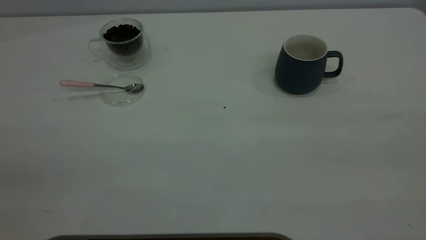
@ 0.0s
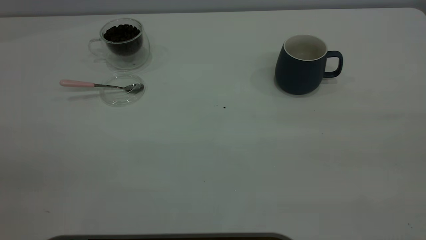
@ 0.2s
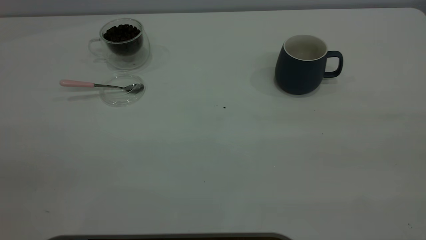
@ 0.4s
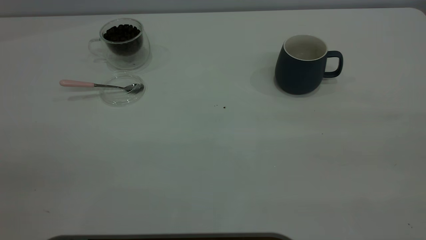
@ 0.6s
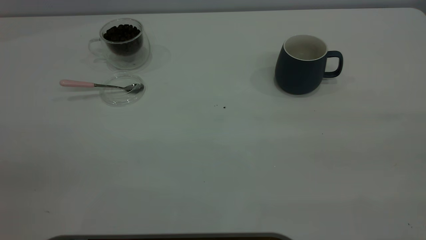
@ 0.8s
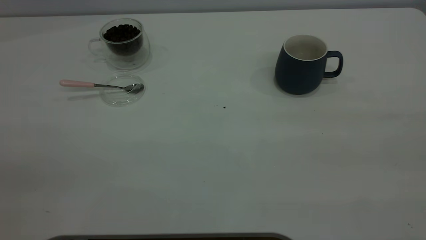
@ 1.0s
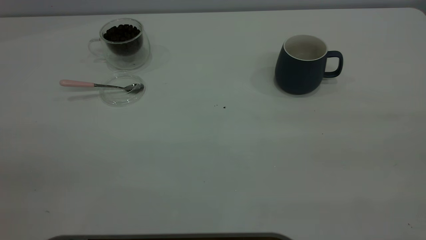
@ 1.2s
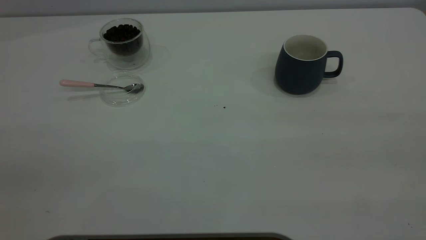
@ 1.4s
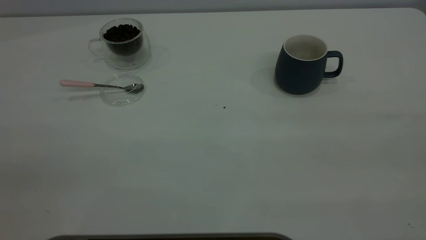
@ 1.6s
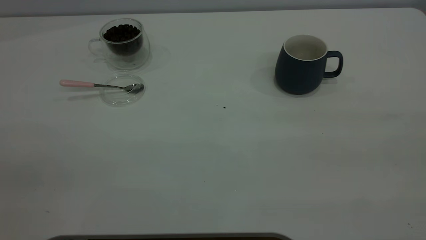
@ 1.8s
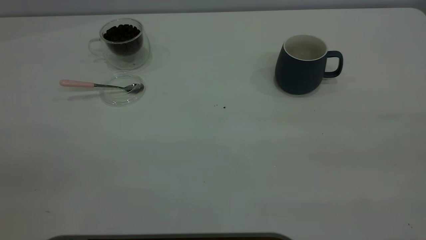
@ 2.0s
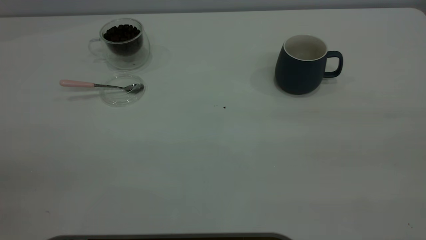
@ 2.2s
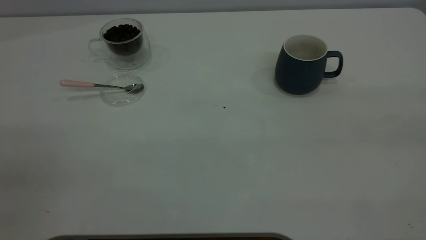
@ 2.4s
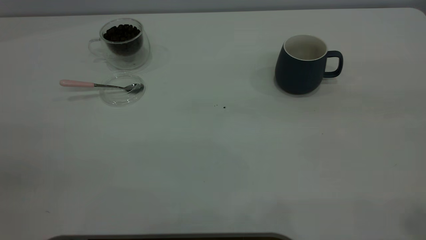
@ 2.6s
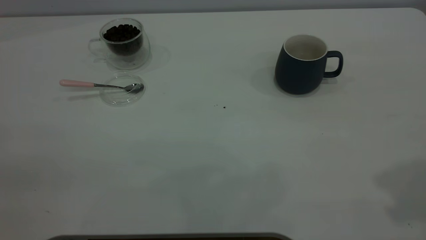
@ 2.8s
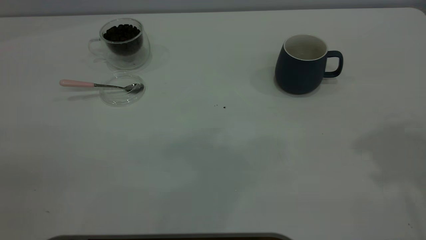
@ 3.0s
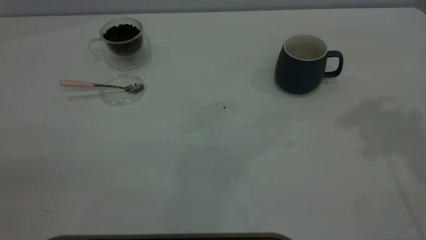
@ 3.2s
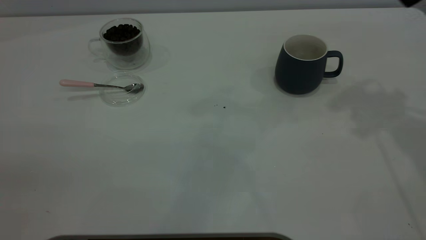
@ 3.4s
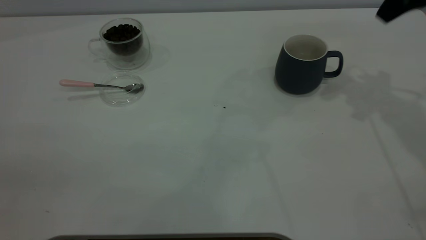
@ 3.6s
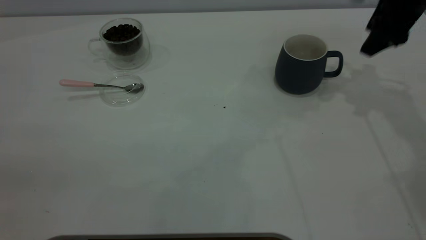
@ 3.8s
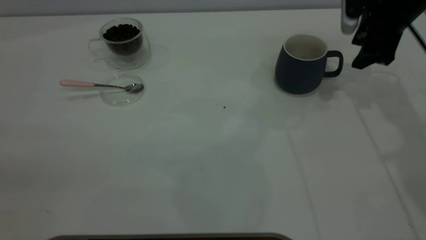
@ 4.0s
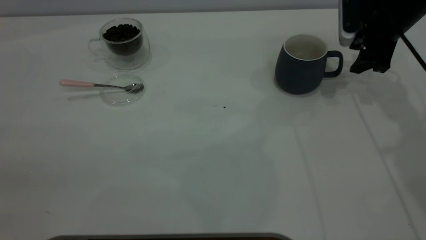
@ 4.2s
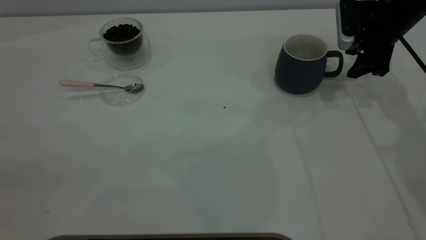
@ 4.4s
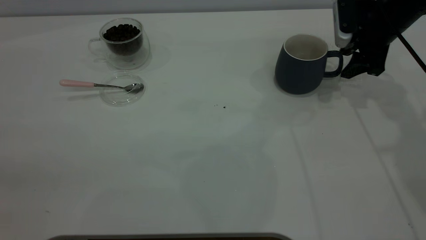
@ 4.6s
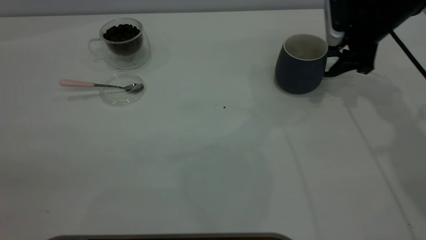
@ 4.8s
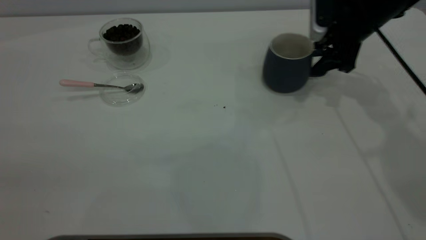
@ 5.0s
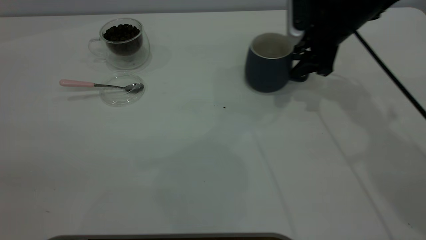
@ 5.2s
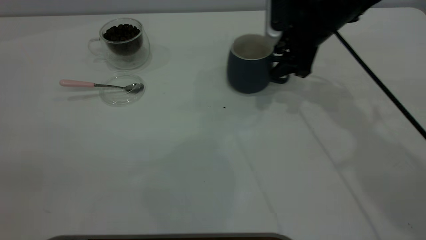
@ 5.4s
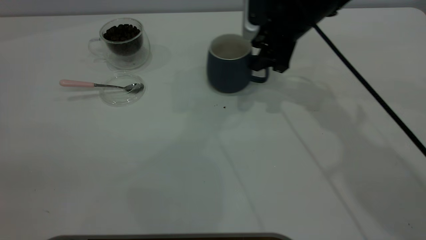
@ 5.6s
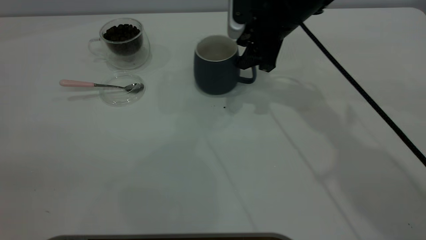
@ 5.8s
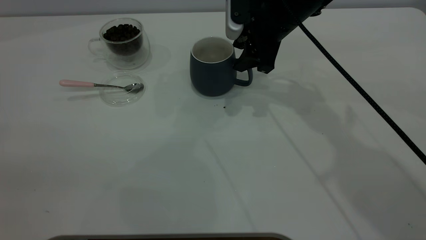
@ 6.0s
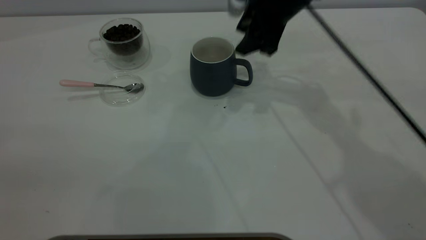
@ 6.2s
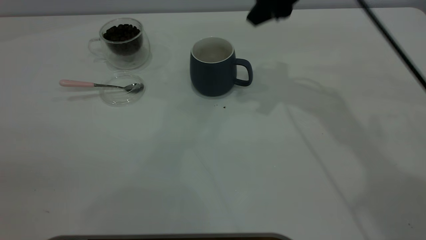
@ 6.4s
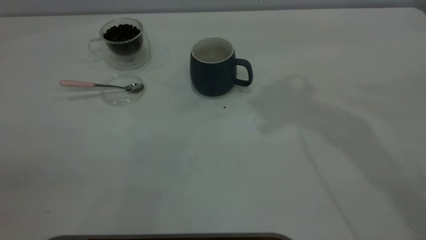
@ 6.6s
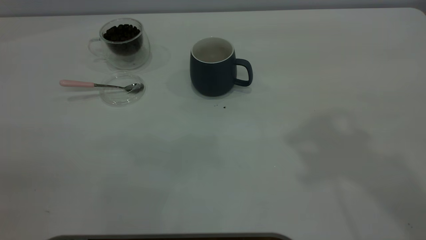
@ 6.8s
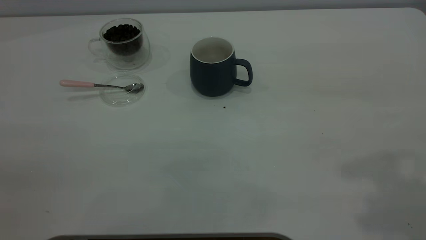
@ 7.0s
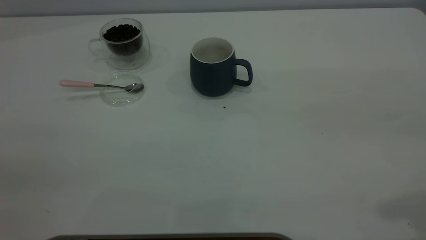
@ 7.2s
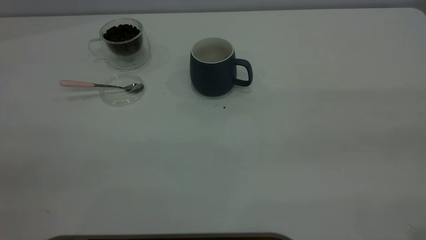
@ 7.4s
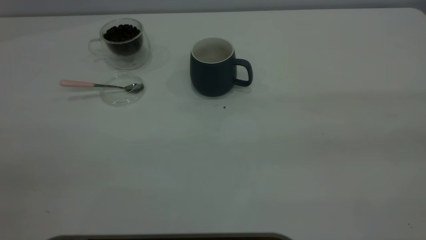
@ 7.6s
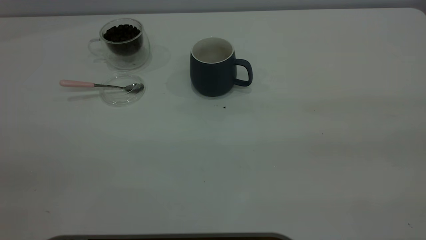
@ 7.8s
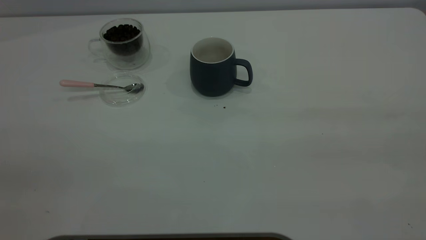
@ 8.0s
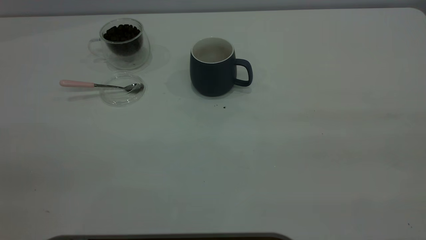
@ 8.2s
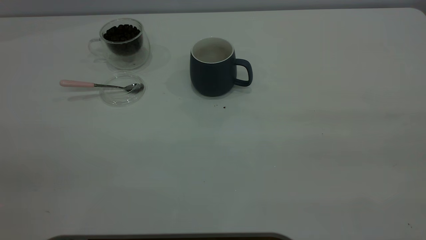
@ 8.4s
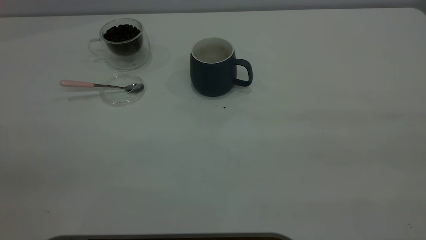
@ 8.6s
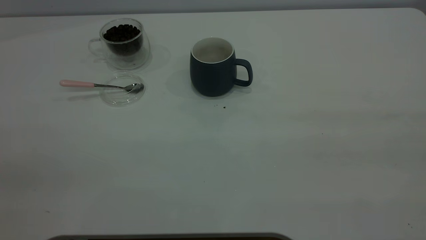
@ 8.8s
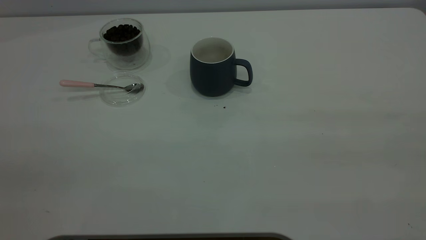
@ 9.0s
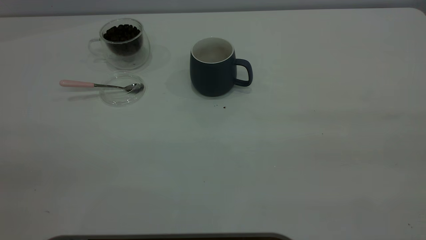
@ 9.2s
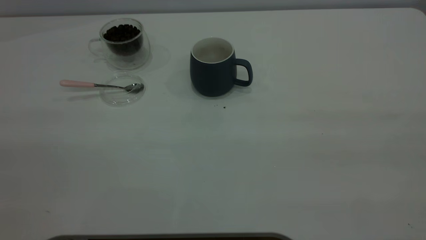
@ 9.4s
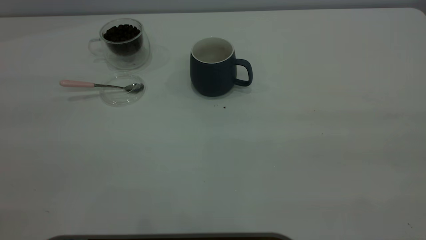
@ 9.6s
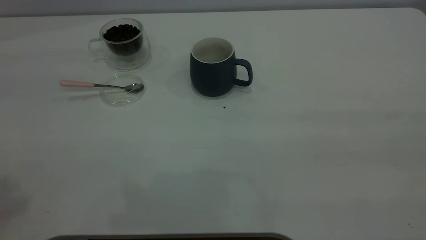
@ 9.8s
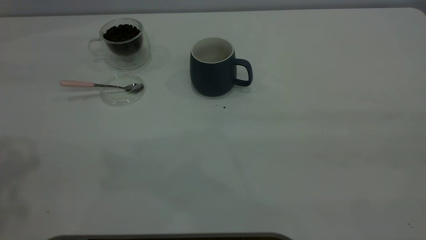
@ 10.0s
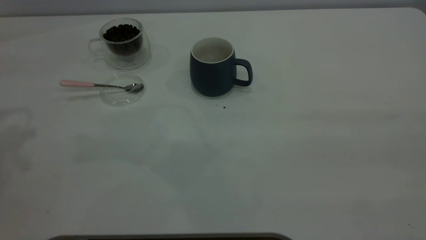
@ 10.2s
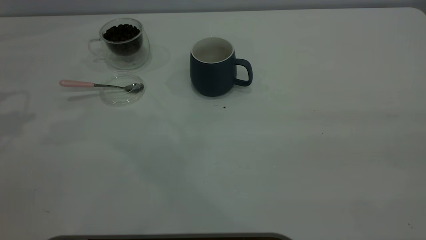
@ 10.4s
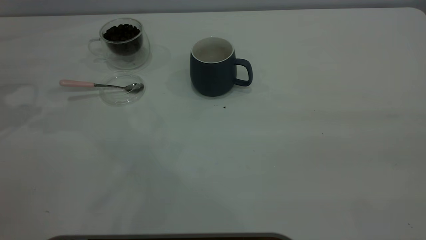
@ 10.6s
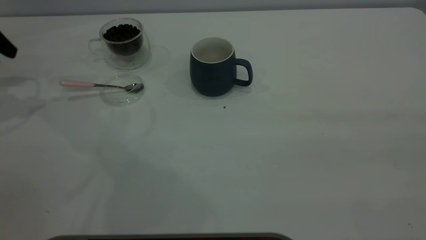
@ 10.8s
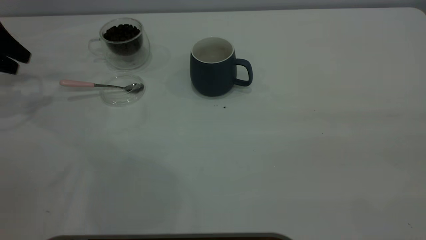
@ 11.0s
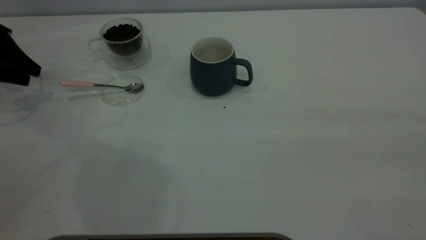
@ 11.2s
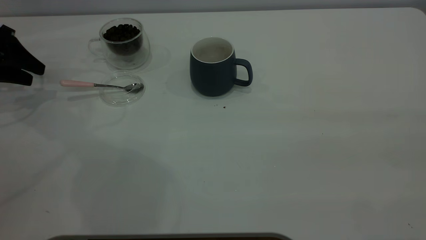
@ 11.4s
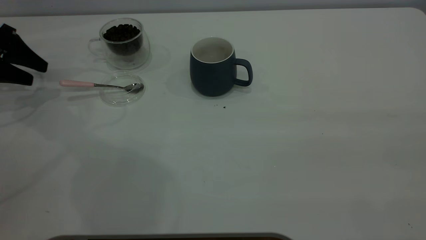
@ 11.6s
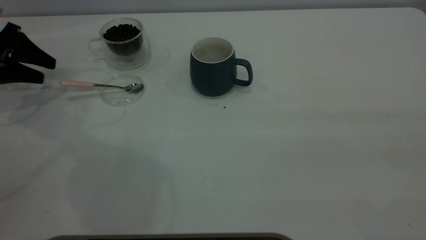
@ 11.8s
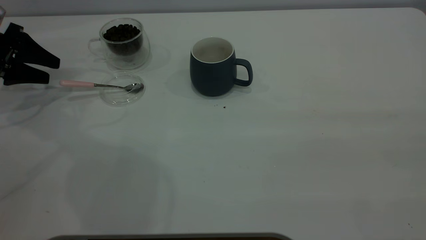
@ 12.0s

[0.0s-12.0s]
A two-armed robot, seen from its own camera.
Task of the whole recording: the right gripper place the grey cup in the center of the table, the left gripper take the pink spoon from the cup lid and scoop out the coffee beans from the coffee cup and put them into the grey cup, the left gripper put the spoon back into the cup lid.
Step, 0.0s to 6.2s: Move the cup to the center of view.
0.0s to 1.6s: Neither gripper changes place.
3.0s to 4.4s: The right gripper shifts about 30 cm downward and forward.
4.4s to 6.0s: The right gripper is displaced to the left by approximately 20 cm.
6.0s to 7.6s: The right gripper travels backward, upward and to the right by roughly 50 cm.
10.4s to 12.0s: The left gripper moves downward and forward, some 20 cm.

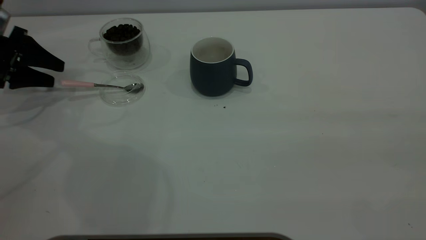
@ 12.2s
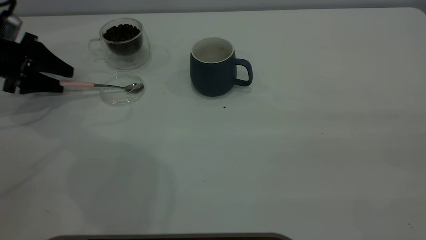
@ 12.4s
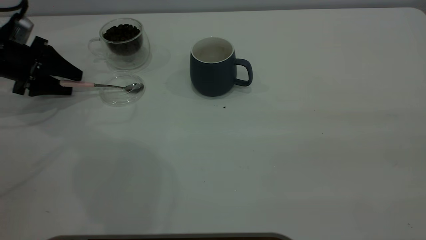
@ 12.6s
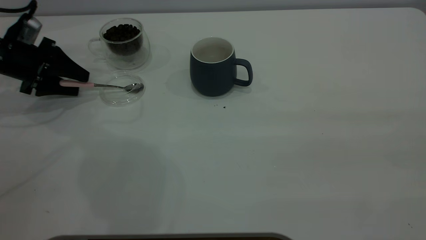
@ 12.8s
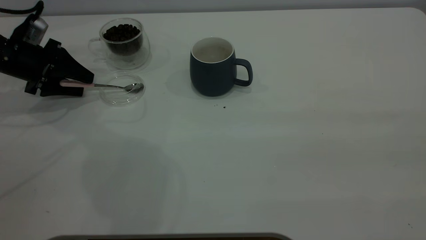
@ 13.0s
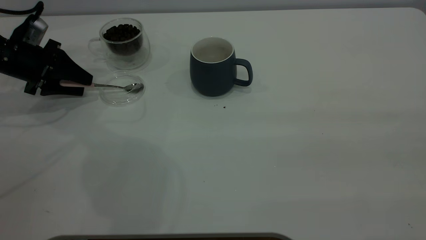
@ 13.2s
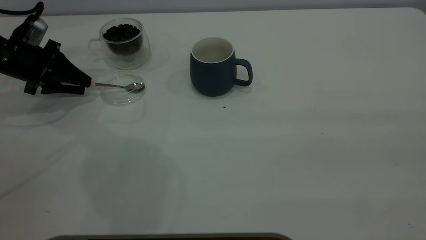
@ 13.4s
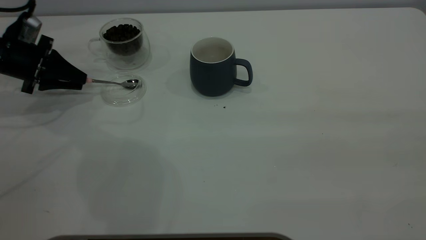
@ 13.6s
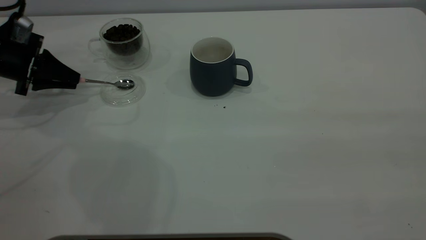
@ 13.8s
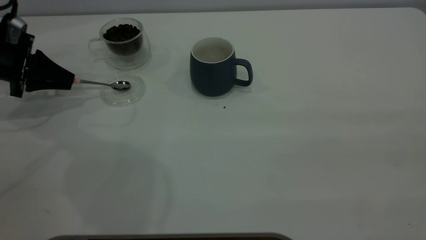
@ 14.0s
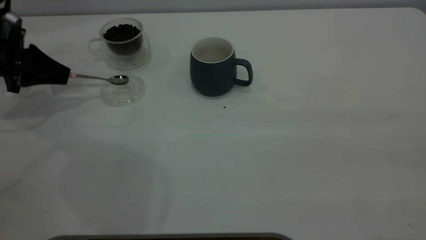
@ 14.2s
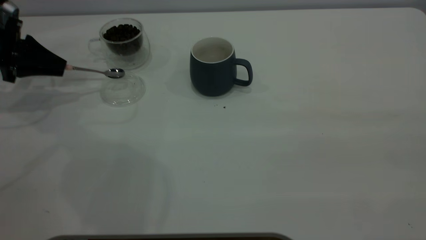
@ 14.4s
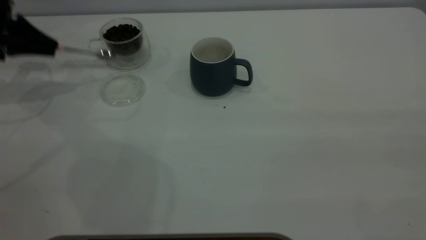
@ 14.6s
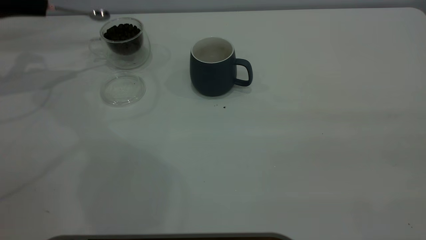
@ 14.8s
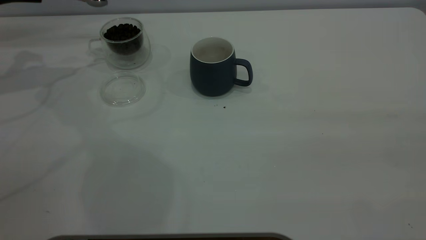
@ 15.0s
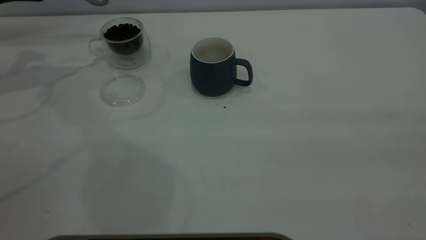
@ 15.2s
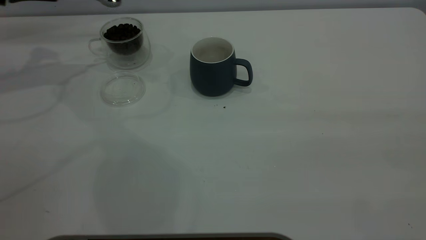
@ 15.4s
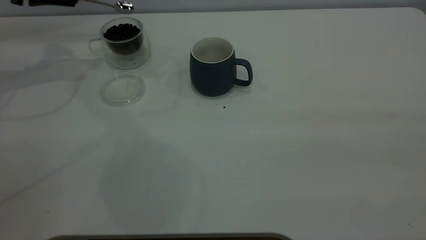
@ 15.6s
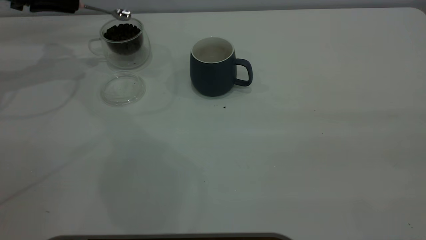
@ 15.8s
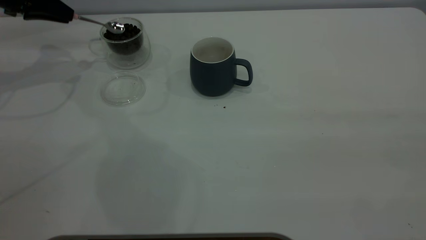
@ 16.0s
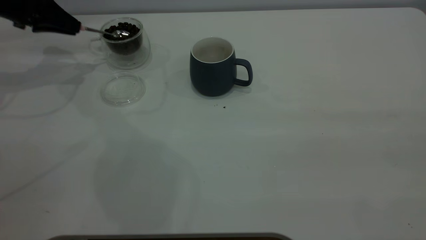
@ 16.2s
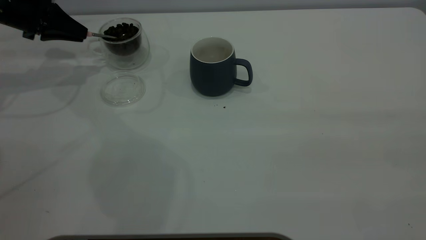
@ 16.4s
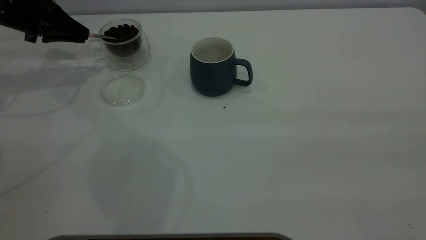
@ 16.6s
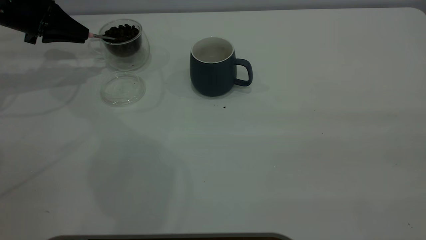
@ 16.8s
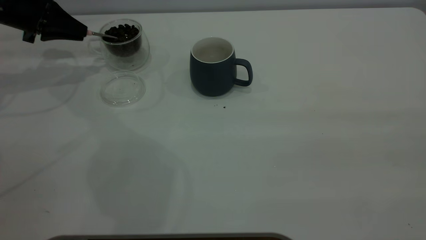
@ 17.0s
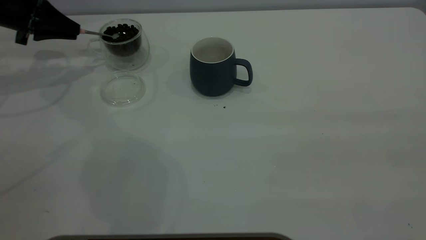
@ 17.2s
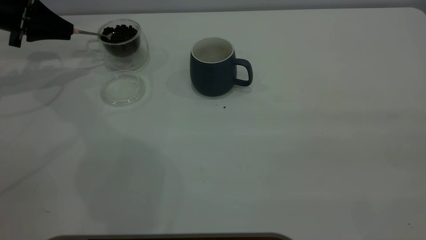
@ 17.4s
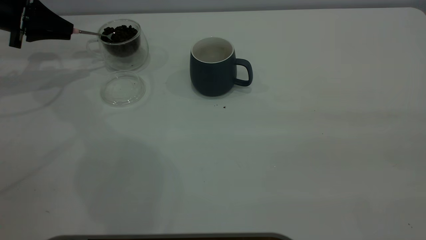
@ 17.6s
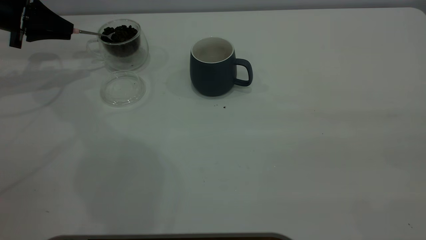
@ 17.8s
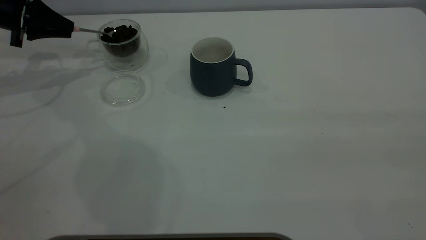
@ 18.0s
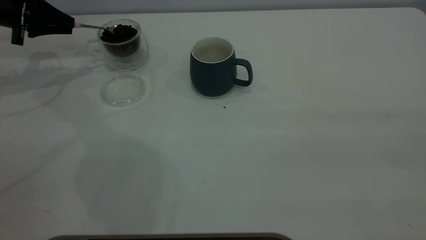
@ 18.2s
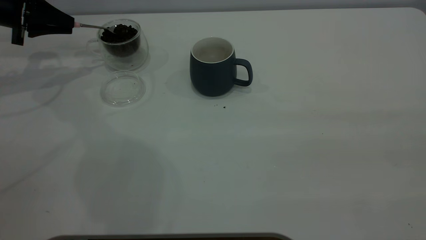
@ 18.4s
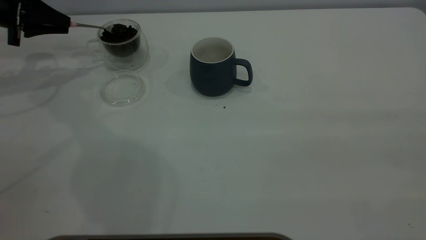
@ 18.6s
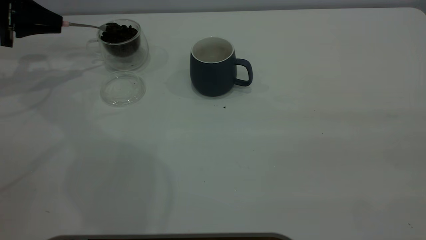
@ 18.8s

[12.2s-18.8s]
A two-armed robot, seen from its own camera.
Task of the whole recording: the right gripper place the grey cup in the center of the table, the left gripper take the pink spoon from the cup lid and scoop out the coffee beans from the coffee cup and put them into the grey cup, the left gripper put the spoon back into the cup lid.
Step, 12.2s to 14.4s: Pick up the spoon.
12.2s to 13.8s: The left gripper closes.
13.8s to 15.4s: The left gripper moves upward and forward, about 15 cm.
15.4s to 17.2s: The left gripper moves downward, about 5 cm.
17.2s to 18.8s: The grippers make only small movements.
